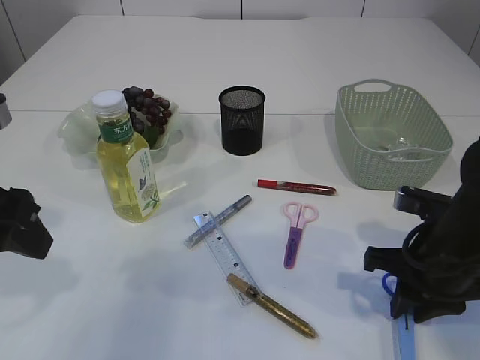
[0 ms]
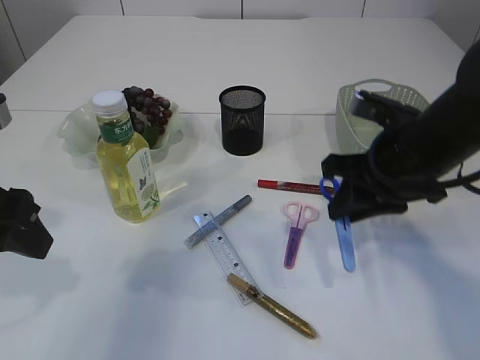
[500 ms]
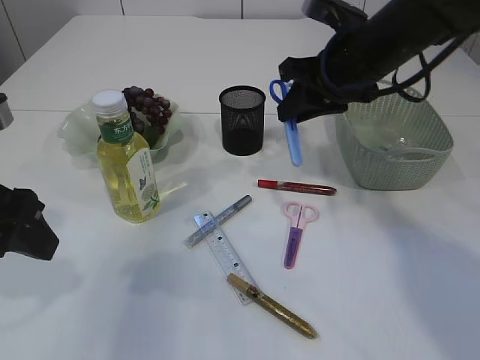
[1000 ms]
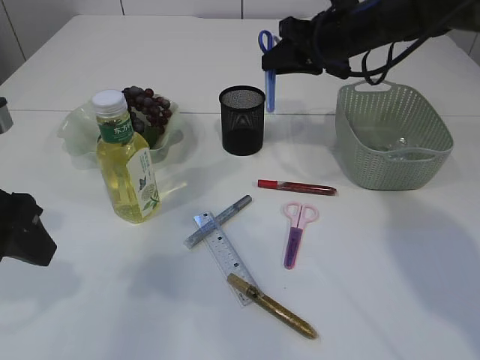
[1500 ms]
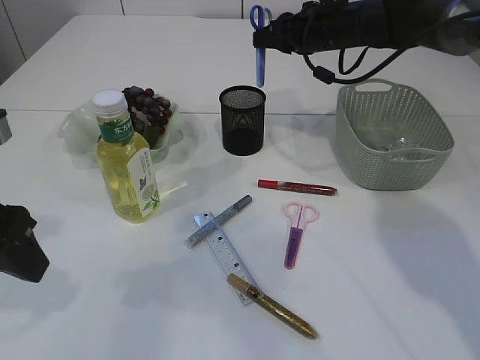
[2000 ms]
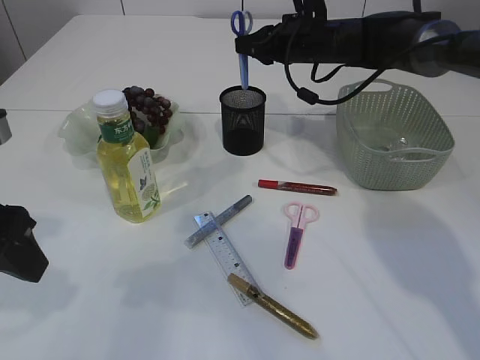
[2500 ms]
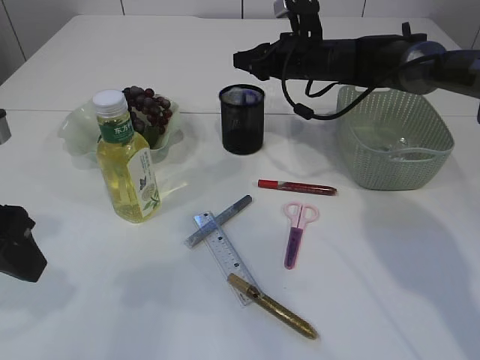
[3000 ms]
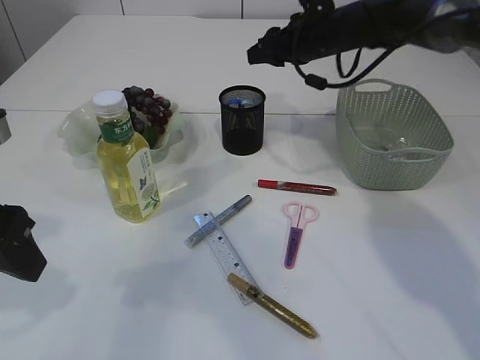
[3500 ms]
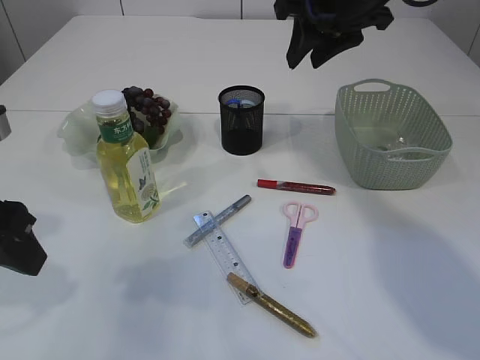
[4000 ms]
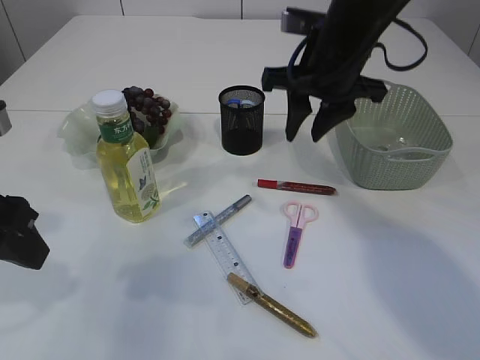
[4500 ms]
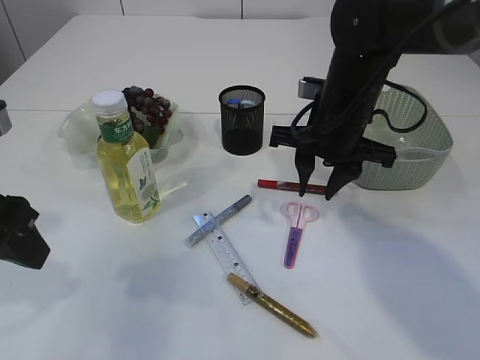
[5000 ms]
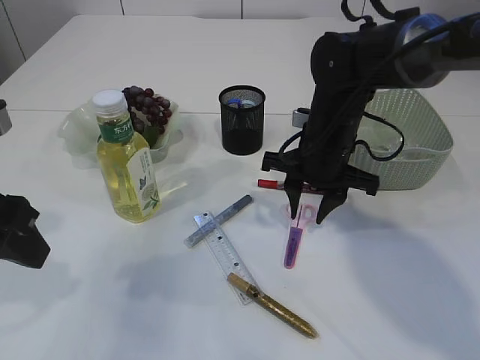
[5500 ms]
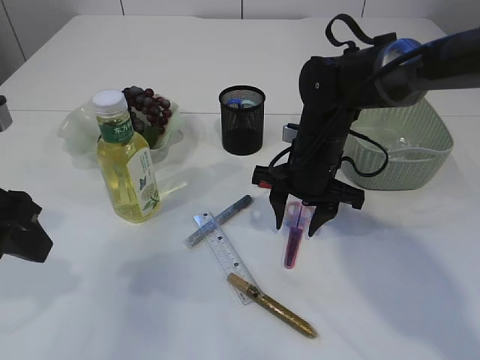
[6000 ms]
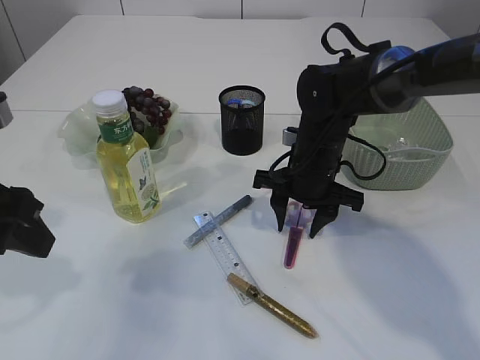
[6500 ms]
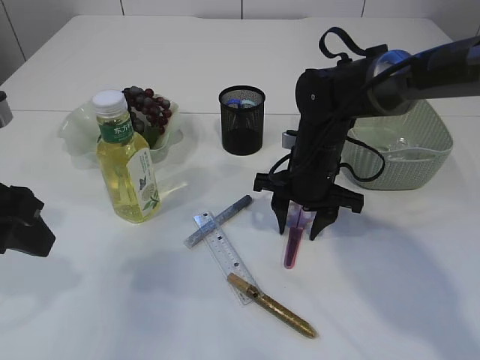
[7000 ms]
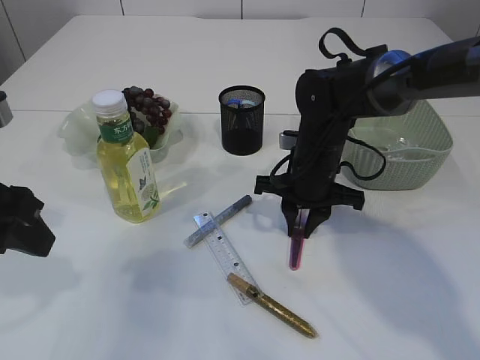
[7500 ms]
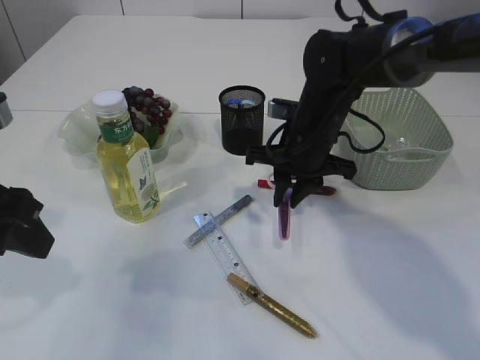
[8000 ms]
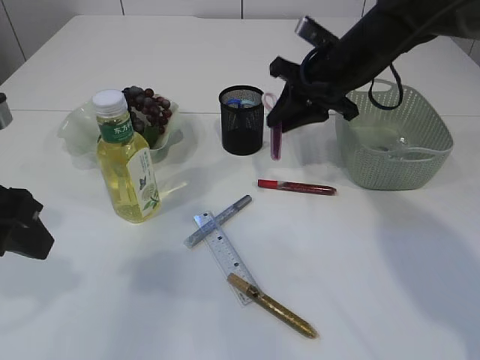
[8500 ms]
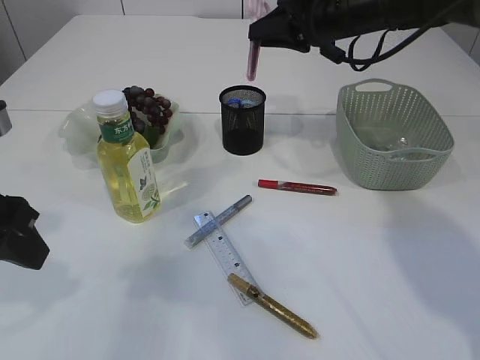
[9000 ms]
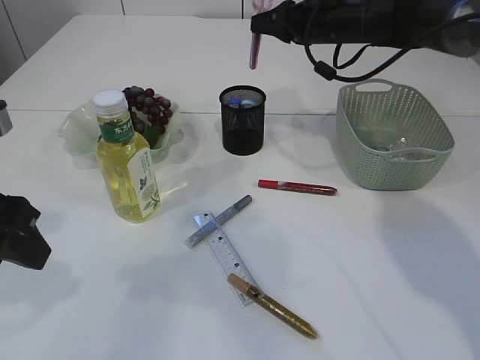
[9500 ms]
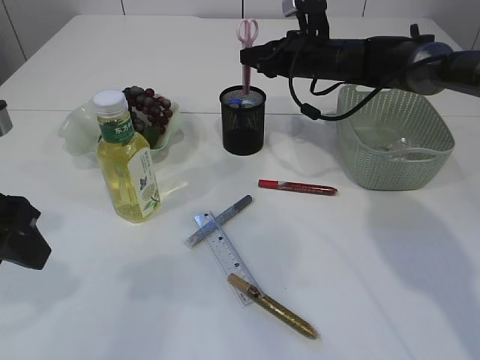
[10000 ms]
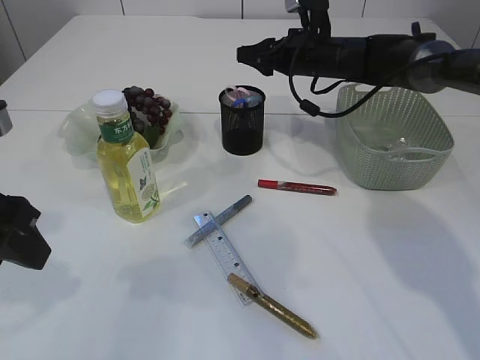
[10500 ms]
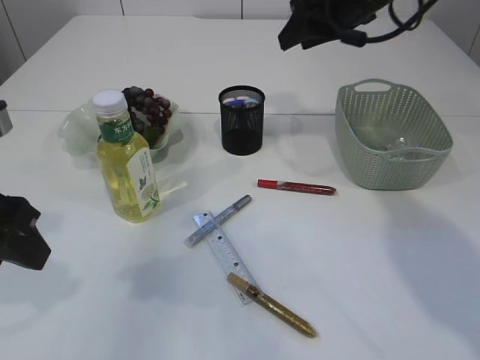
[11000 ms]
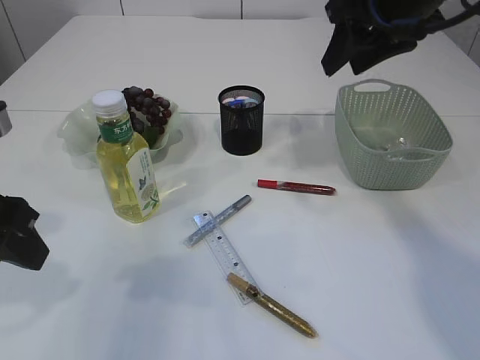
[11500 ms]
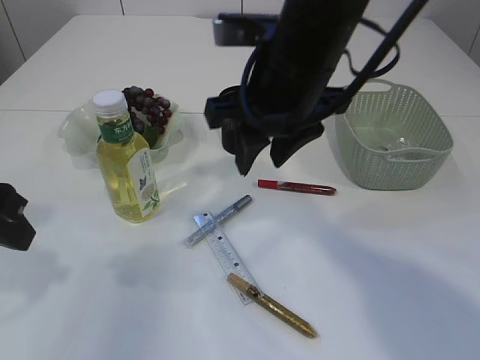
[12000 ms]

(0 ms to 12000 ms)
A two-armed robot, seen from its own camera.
Step, 500 ms - 3000 ms: Place the blue scissors into the pen holder.
Step, 3500 ms - 8000 ms: pick up the pink scissors.
Step, 8500 ms - 10500 ms: Place the pink scissors into the pen holder.
0 ms - 2000 ms: The right gripper shifts some 30 cm forward and upward.
2000 ms - 4000 ms: The right gripper shifts about 15 cm backward and upward.
4000 ms - 6000 ms: The right gripper heads downward, covering about 20 cm.
6000 ms - 8000 ms: The right gripper closes up.
8000 ms - 10000 ms: The right gripper is displaced forward by roughly 15 cm.
10000 ms - 12000 ms: The right gripper heads backward and upward, covering roughly 25 cm, and opens up.

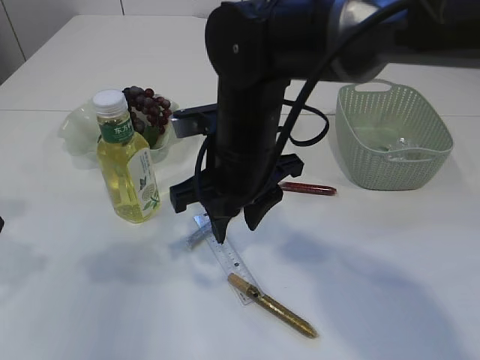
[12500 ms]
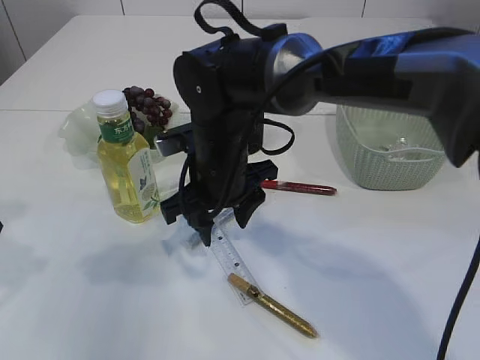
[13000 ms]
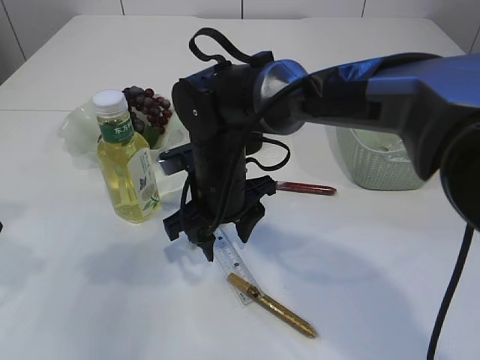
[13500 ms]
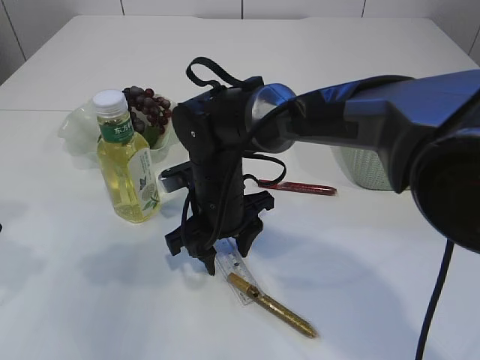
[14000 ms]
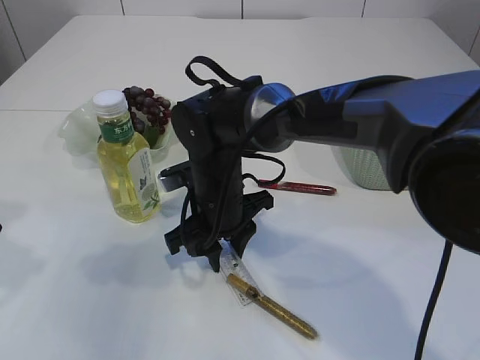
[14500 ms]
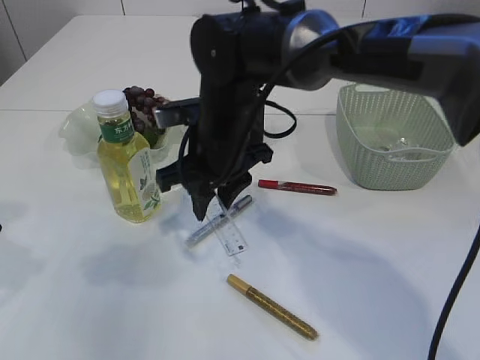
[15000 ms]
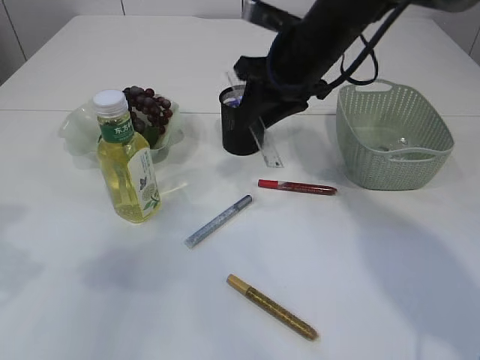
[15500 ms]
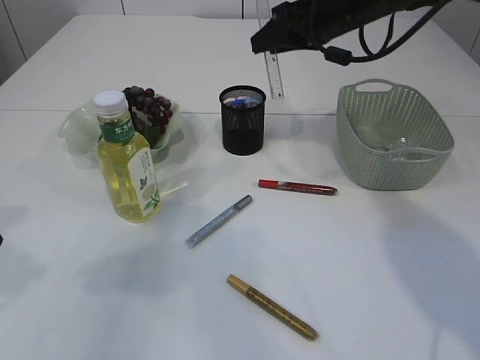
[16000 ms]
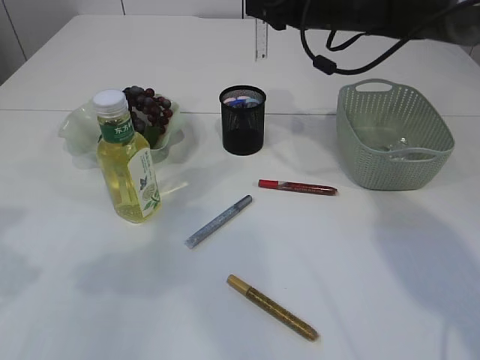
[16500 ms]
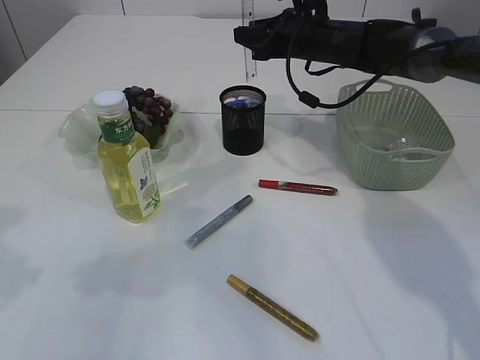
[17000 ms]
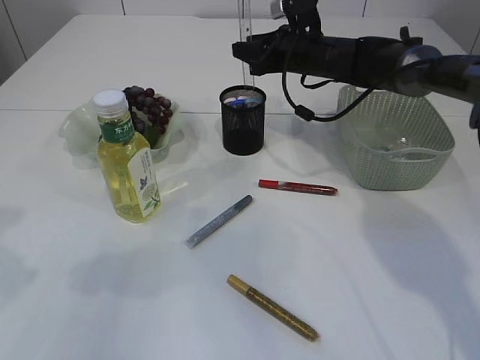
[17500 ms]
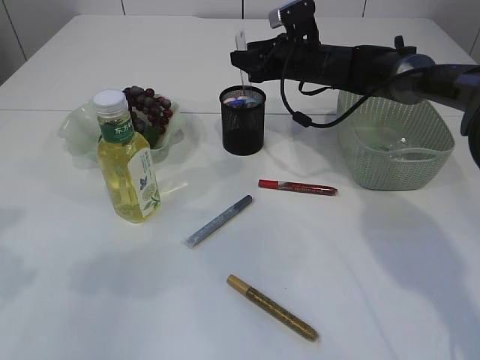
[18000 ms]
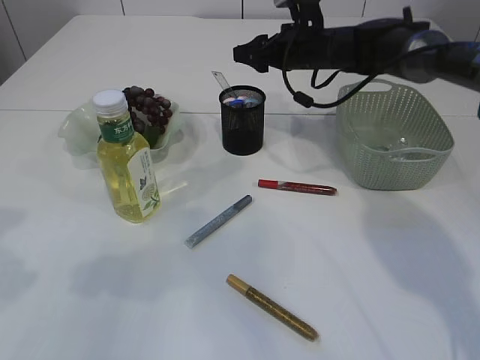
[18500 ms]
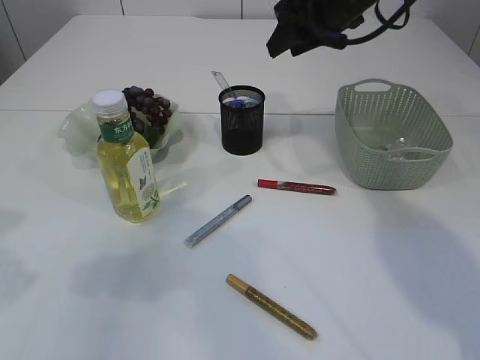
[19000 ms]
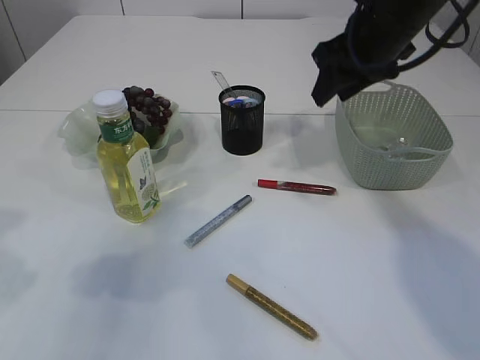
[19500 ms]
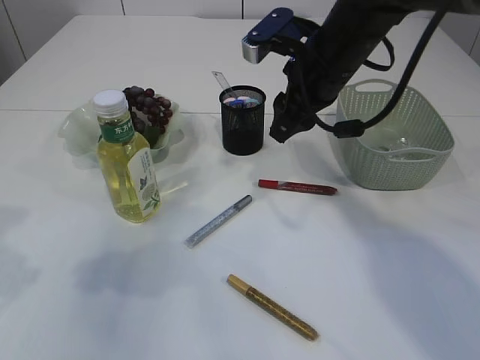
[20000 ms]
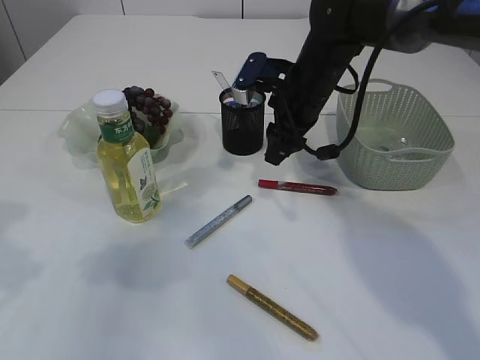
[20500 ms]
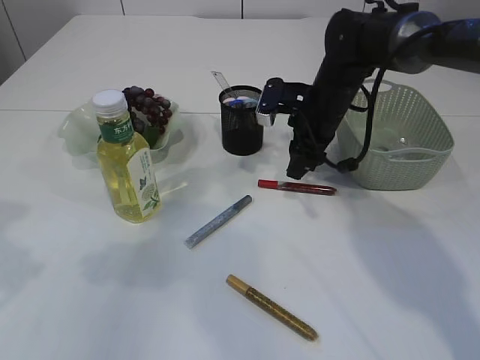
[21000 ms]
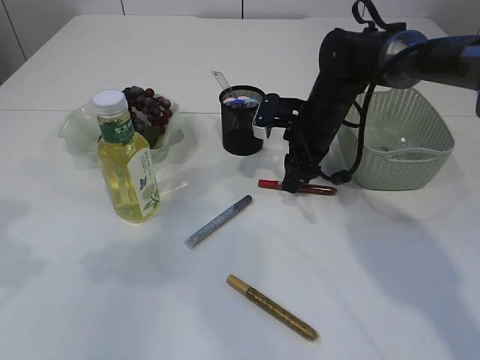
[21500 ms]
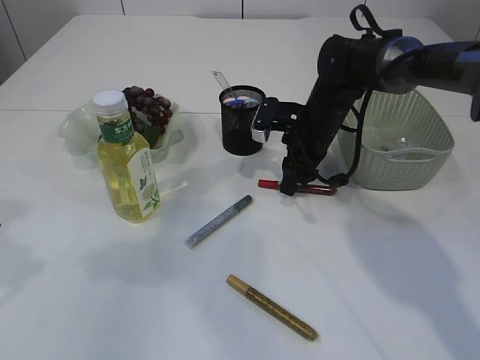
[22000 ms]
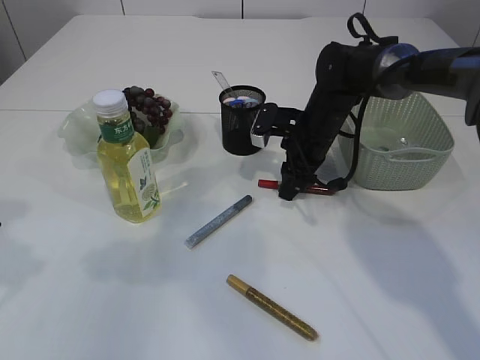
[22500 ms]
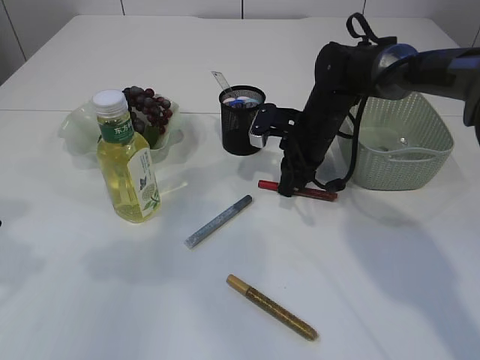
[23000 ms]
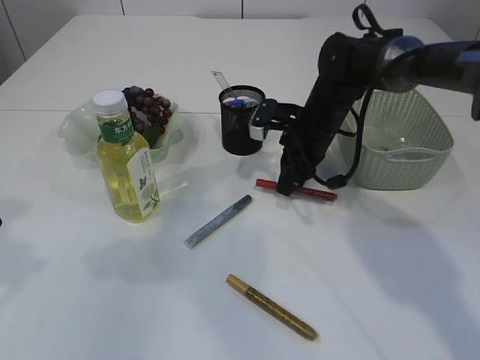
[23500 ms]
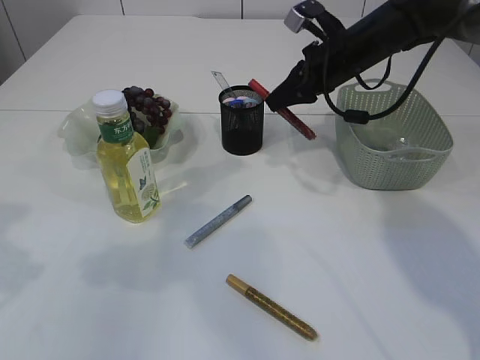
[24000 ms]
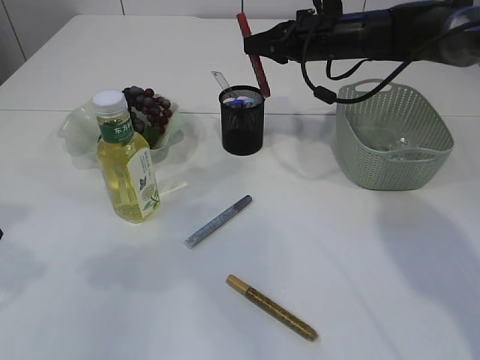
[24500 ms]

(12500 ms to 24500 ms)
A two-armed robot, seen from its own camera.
Step, 12500 ms - 15000 ms: pick up the ruler.
Step, 15500 ms - 18000 ms: Place the ruler into the pen holder.
Step, 18500 ms - 23500 ms: pick up the red glue.
12500 ms - 14500 ms: The right gripper shifts some 10 cm downward.
14500 ms - 16500 ms: The right gripper heads to the right, forward and upward, covering about 30 cm.
16500 ms - 18500 ms: The right gripper shifts roughly 10 cm downward, and opens.
18500 ms - 20500 ms: The right gripper is displaced backward by approximately 10 cm.
20500 ms - 22500 ms: The right gripper is displaced downward by approximately 10 cm.
22500 ms - 24500 ms: The right gripper goes about 10 cm upward, and closes.

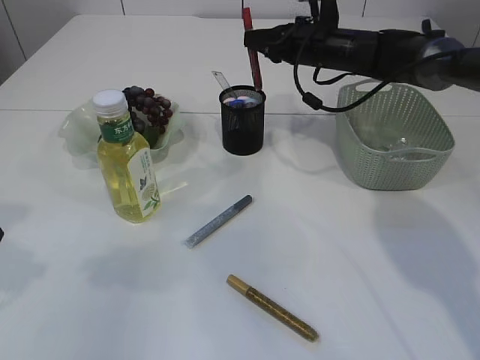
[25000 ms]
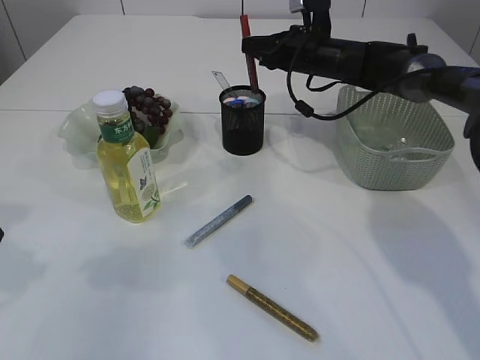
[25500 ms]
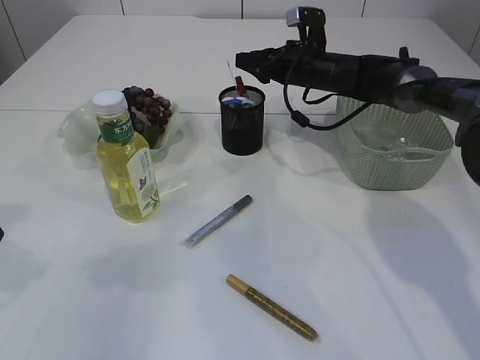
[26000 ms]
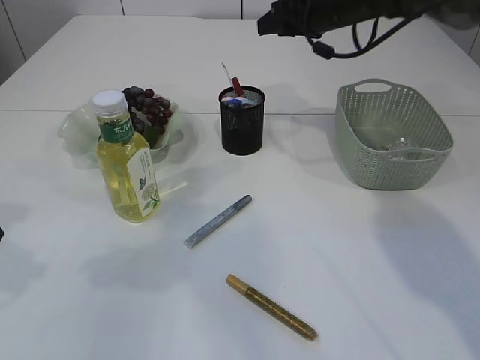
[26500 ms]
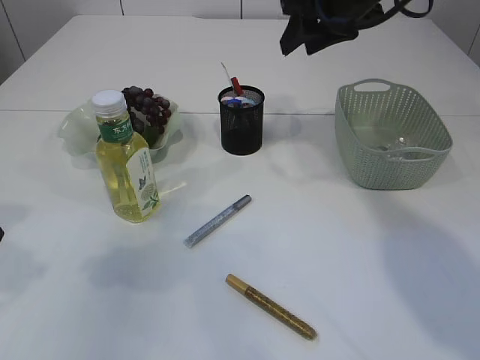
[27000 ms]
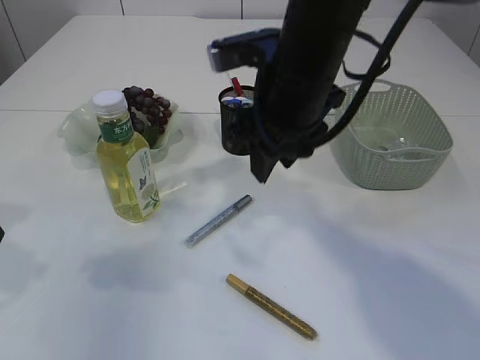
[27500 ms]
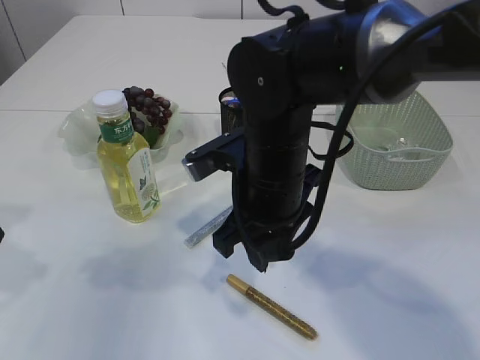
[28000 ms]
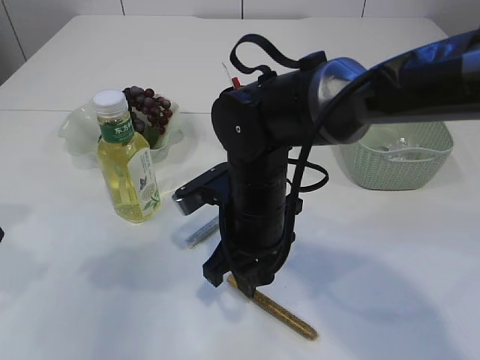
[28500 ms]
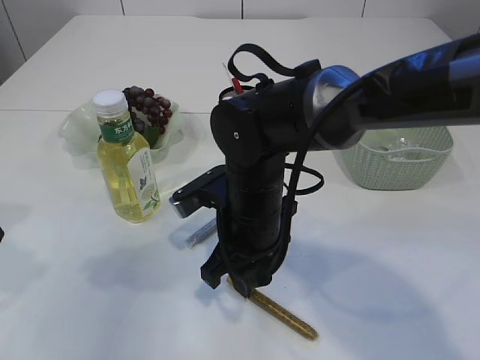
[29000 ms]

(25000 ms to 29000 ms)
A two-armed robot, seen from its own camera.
25000 ms - 27000 ms: The right gripper shifts about 15 cm upward and backward, and opens up.
27000 ms - 29000 ms: The right gripper goes about 25 cm downward, backward and to the left.
